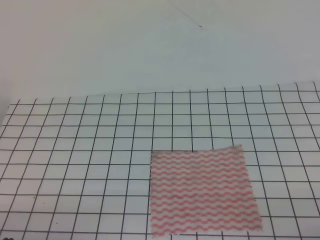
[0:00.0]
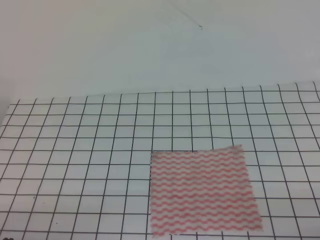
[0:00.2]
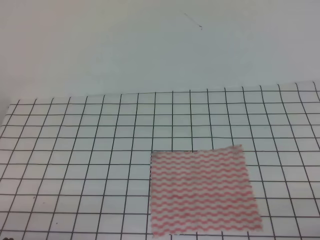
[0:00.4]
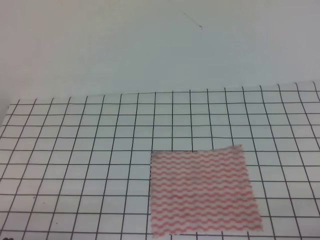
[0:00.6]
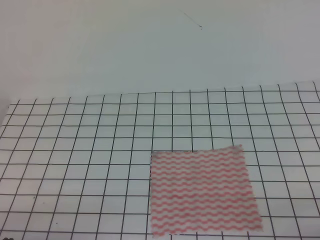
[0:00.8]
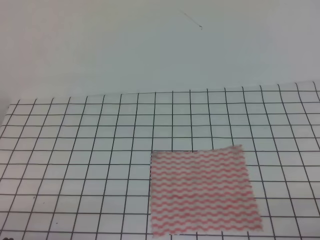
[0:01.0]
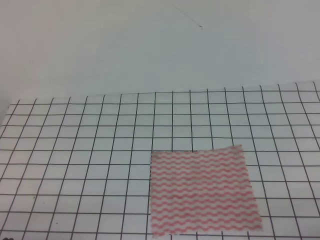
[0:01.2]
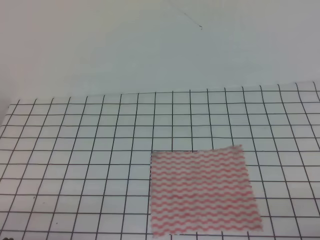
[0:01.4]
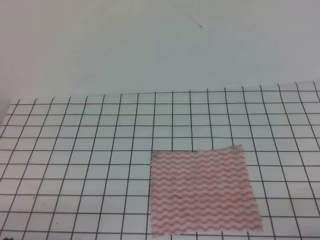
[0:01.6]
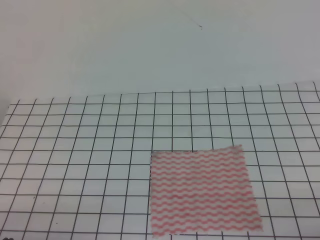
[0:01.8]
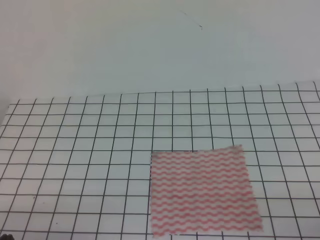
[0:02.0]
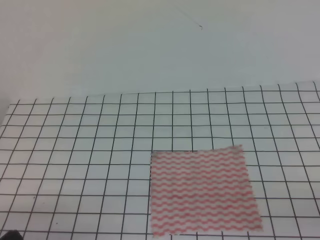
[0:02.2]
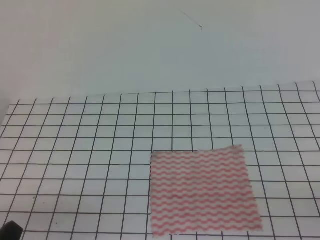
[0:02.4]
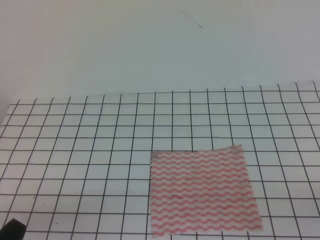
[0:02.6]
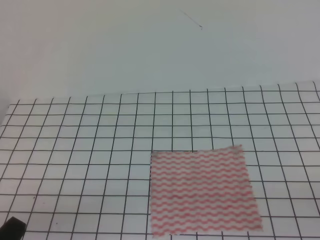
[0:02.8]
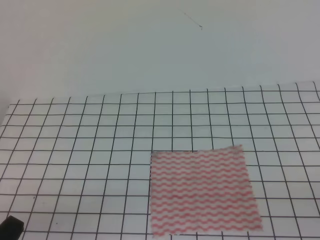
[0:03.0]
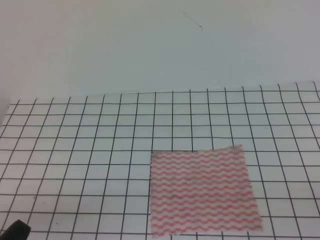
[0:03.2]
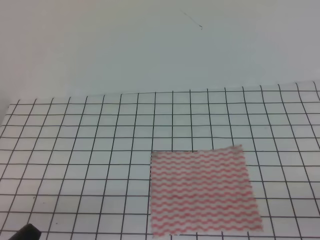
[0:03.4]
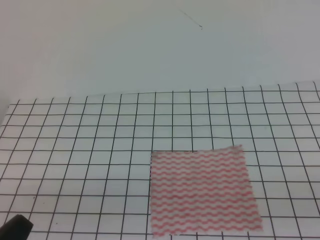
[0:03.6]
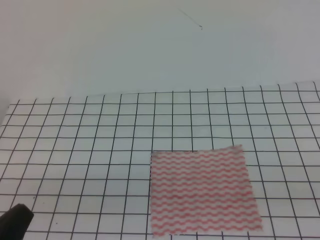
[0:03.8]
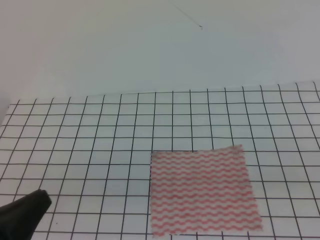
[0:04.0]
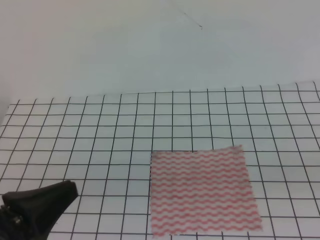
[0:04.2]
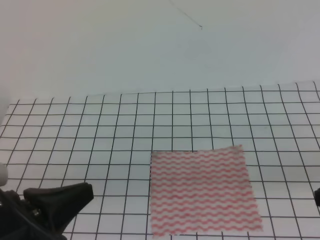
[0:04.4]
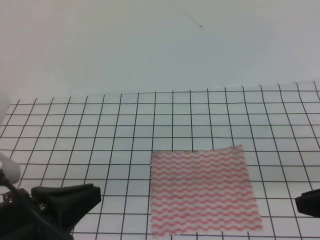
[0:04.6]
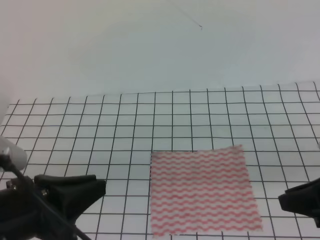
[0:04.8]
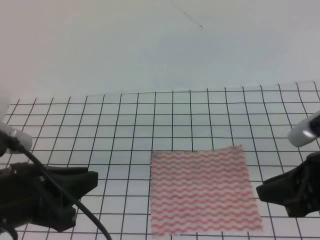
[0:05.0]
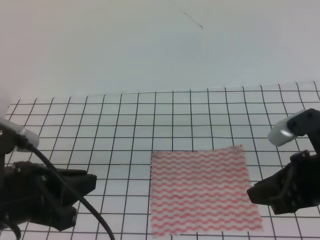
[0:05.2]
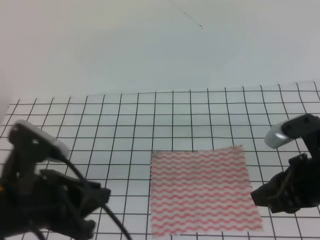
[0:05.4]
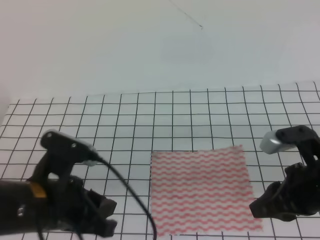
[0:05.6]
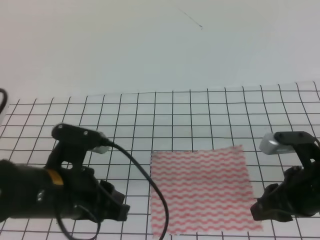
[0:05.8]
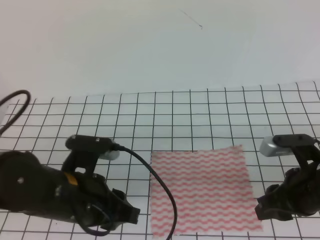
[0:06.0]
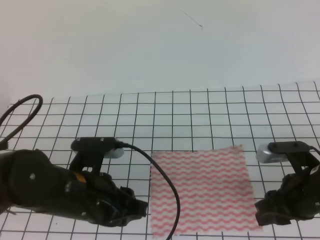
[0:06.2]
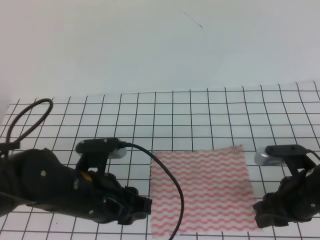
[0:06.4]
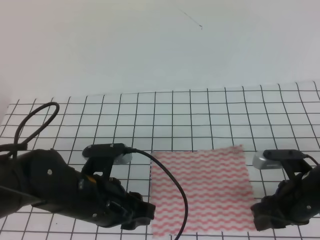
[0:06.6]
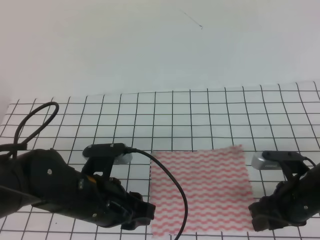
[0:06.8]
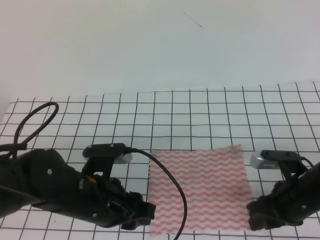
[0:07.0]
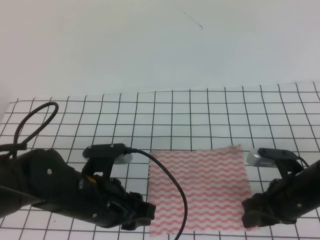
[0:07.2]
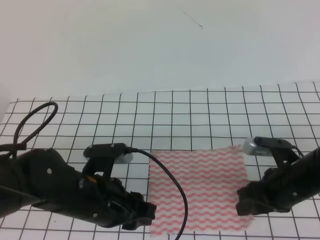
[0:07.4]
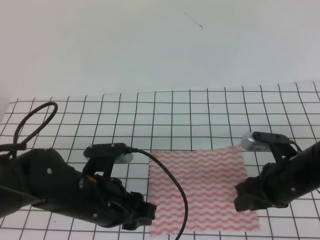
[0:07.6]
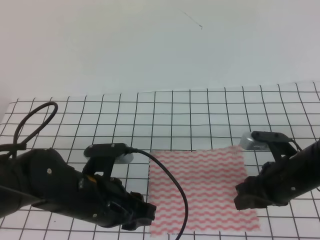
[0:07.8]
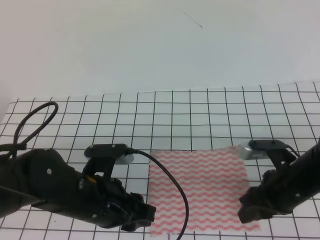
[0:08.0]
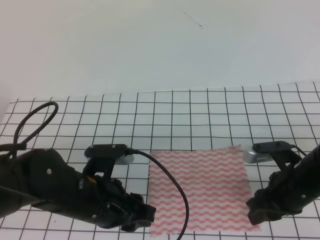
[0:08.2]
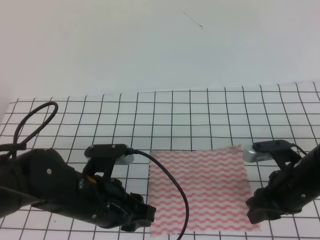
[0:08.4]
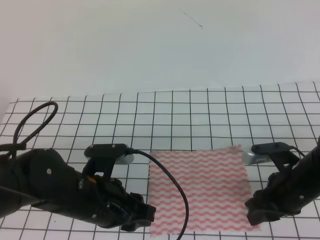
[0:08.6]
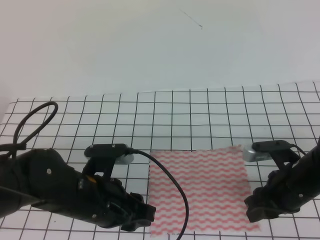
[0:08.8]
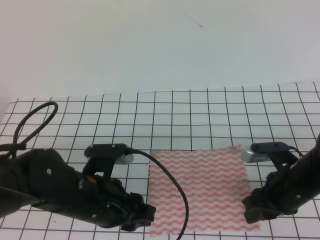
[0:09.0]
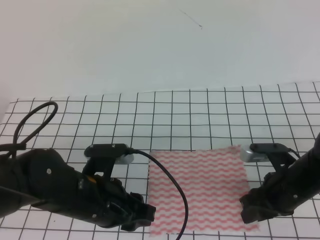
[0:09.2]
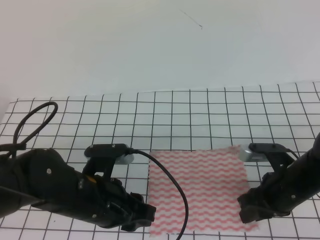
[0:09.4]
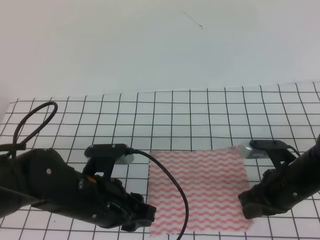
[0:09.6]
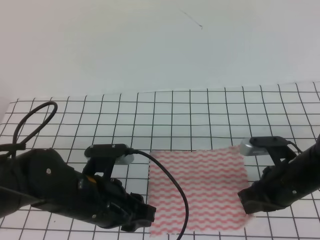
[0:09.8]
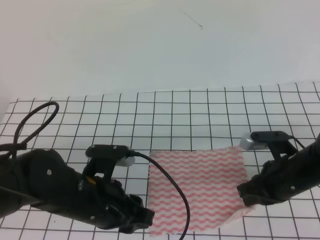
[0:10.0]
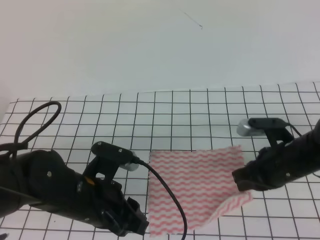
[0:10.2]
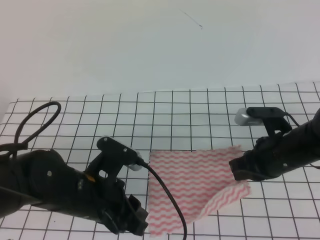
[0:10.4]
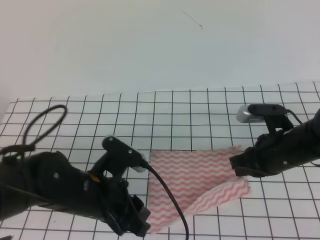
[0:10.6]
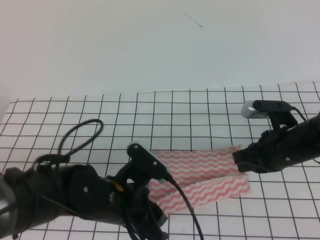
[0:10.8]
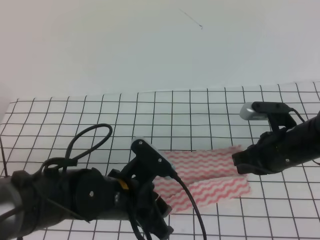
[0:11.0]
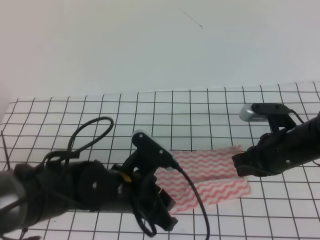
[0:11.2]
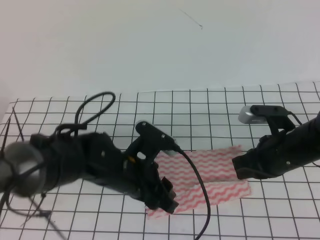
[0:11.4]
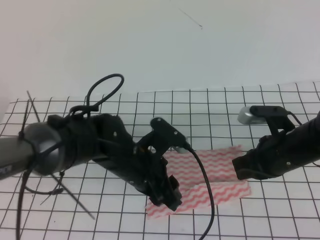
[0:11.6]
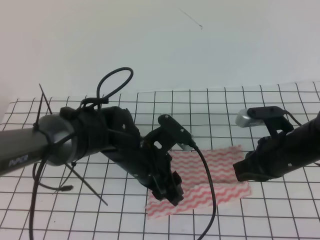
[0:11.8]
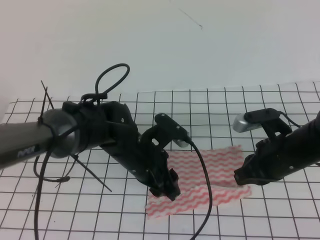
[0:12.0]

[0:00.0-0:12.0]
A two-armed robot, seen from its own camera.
0:00.0 to 0:01.6: The two grippers keep their place.
0:03.0 to 0:04.4: The left gripper goes some 10 cm upward and forward.
0:04.4 to 0:06.0: The right gripper shifts roughly 15 cm forward, downward and to the left, and opens its fingers, while the left gripper goes about 10 cm forward and to the right, and opens up.
0:06.0 to 0:07.6: The right gripper changes place by approximately 5 cm.
0:07.6 to 0:09.0: The grippers make only small movements.
0:09.0 to 0:10.4: The right gripper closes.
0:10.4 to 0:12.0: The left gripper is displaced forward and to the right by approximately 10 cm.

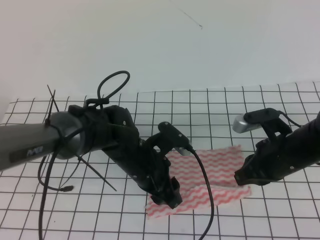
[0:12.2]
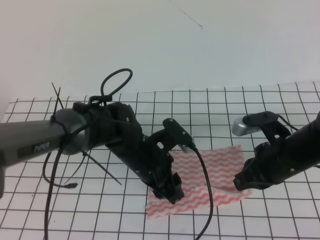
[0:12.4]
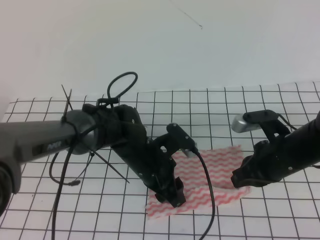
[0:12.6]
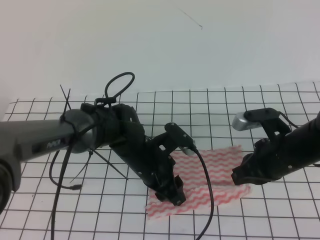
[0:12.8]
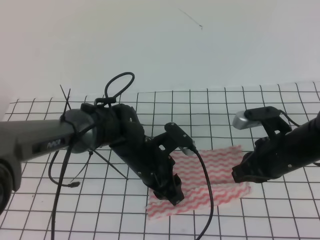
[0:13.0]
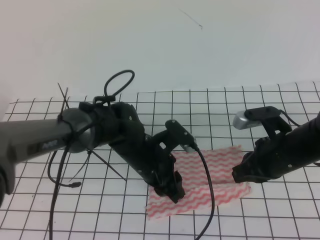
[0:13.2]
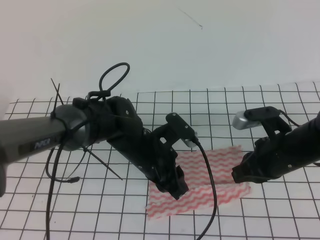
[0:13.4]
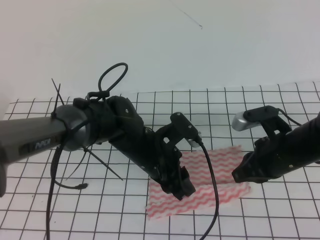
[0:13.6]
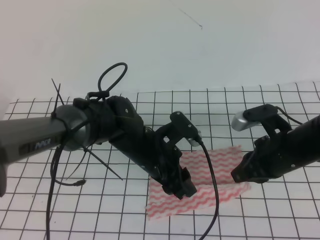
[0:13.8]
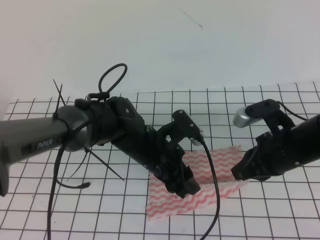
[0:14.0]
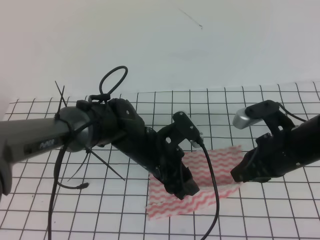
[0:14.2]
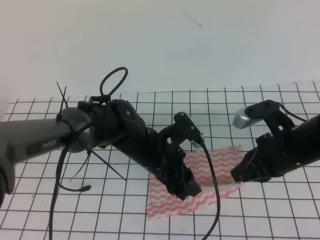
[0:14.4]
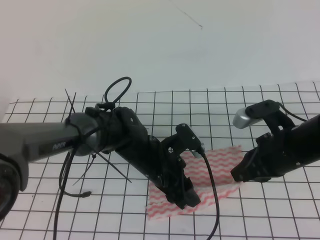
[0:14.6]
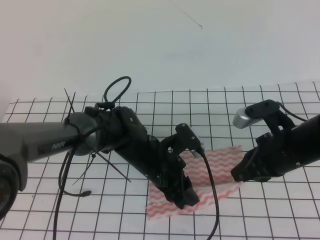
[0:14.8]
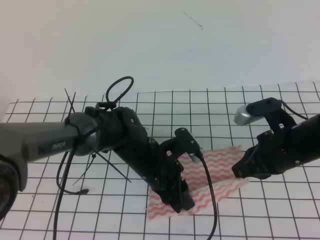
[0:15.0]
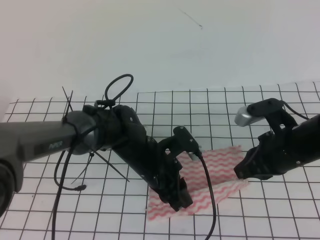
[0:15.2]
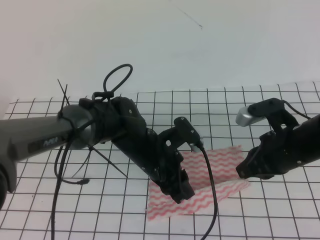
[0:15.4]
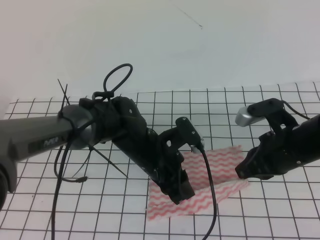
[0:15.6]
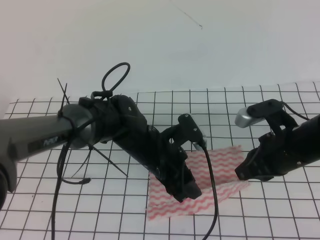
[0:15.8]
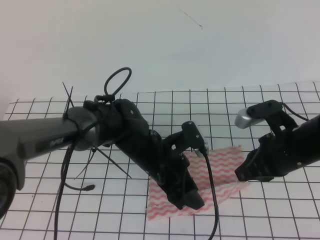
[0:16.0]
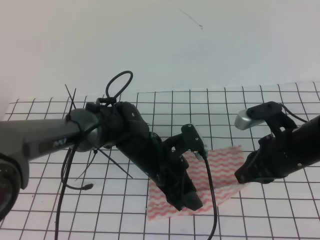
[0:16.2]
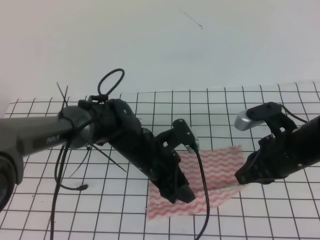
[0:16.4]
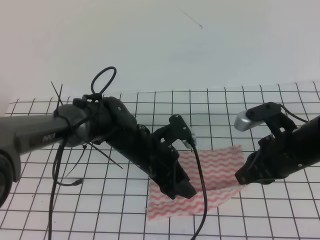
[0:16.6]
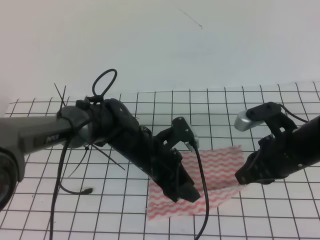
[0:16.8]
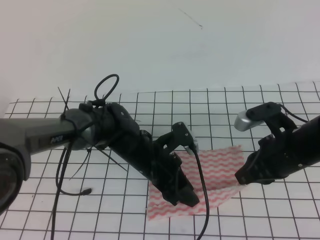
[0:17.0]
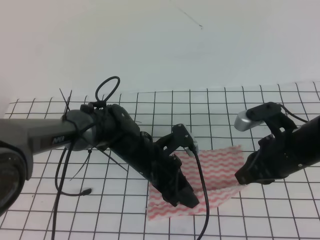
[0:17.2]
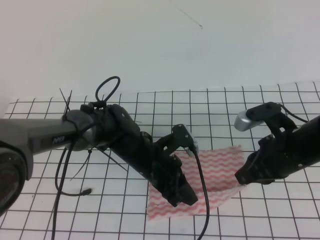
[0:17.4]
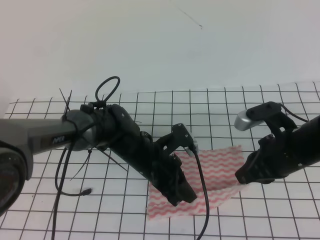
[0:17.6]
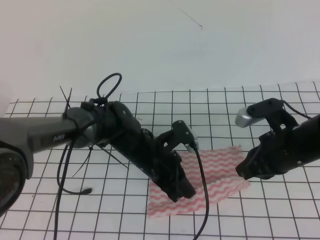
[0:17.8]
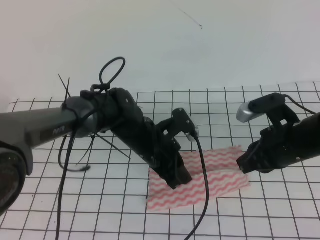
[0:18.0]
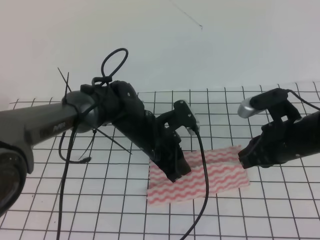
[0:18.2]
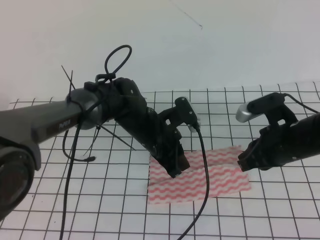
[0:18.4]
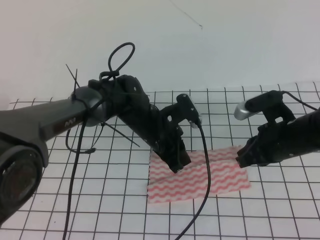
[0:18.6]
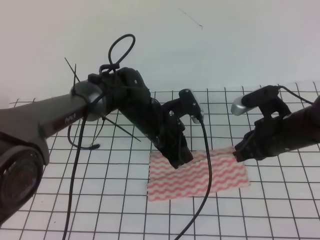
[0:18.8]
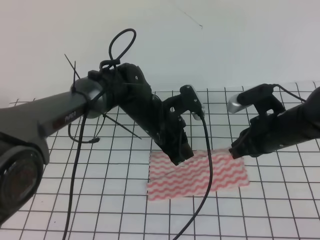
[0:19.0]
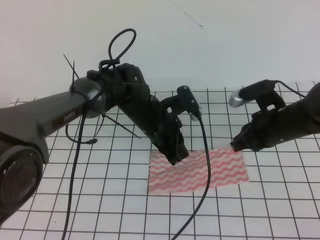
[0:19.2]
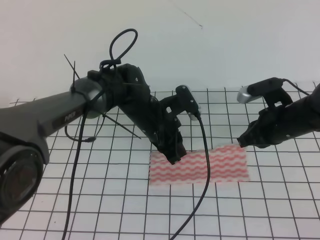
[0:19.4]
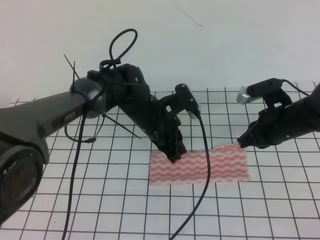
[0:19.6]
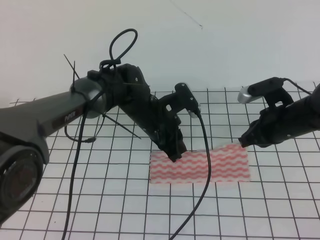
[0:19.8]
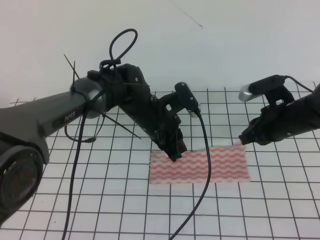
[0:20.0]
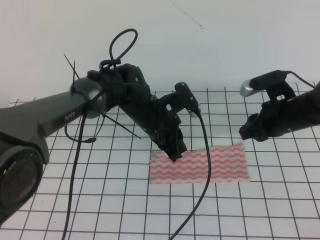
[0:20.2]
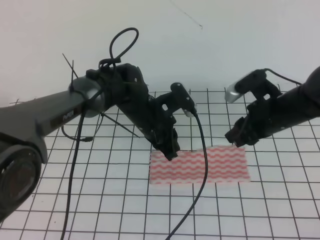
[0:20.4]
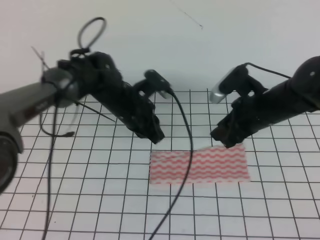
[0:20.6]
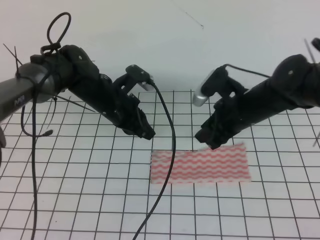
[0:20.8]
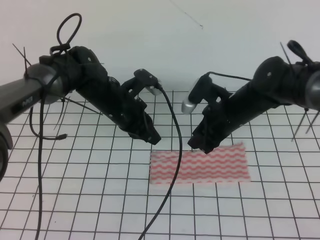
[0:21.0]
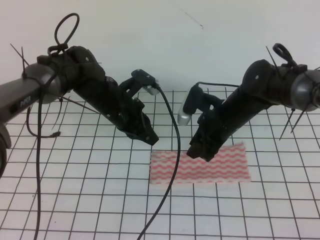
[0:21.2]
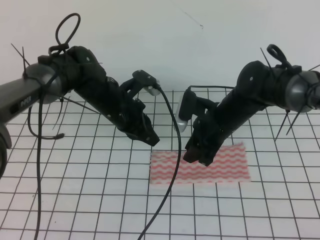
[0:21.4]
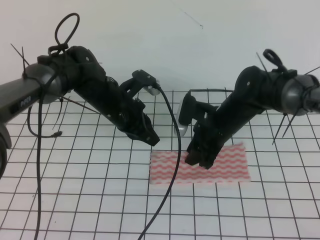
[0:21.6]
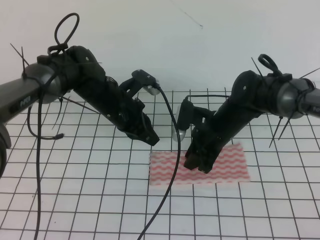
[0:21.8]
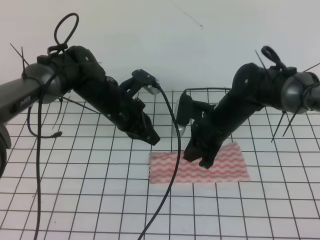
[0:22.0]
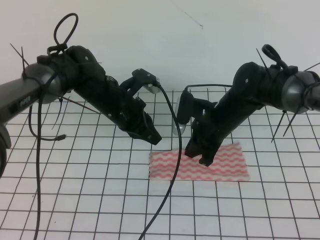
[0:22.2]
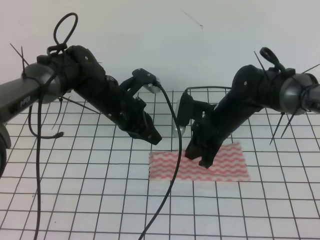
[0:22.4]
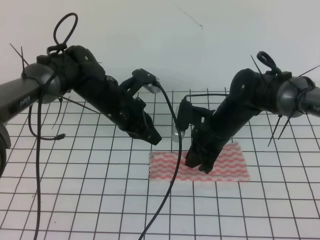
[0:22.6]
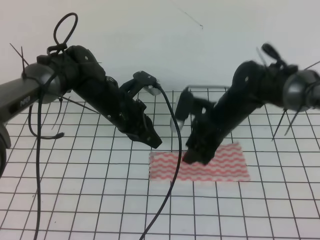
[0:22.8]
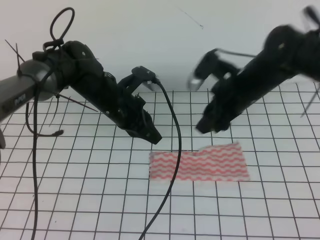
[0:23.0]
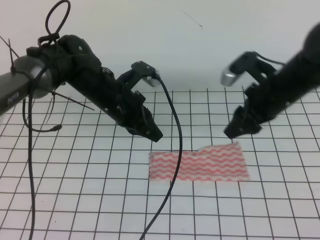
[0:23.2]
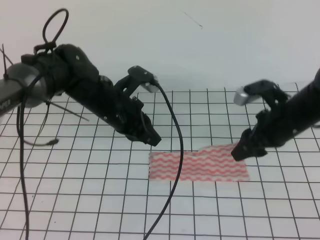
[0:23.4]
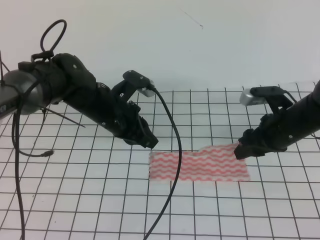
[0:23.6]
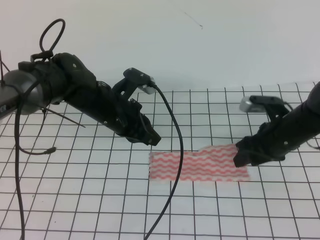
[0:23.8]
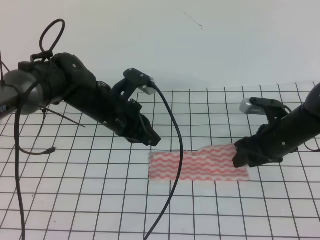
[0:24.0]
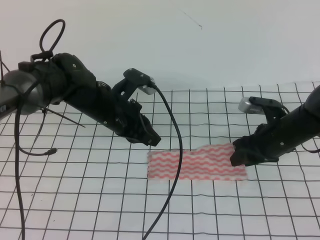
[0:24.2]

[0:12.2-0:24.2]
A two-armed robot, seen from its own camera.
0:12.2 to 0:13.8: The left gripper closes, then reopens.
0:13.8 to 0:15.2: The left gripper closes its fingers.
0:15.2 to 0:16.6: The left gripper opens.
0:16.6 to 0:18.2: The left gripper closes its fingers.
0:18.2 to 0:19.8: The right gripper moves forward, roughly 5 cm.
0:19.8 to 0:21.2: The grippers both shift to the left by some 10 cm. The right gripper opens.
0:21.2 to 0:22.6: There are only small adjustments of the grippers.
0:22.6 to 0:24.2: The right gripper travels to the right by about 10 cm, and opens up.
